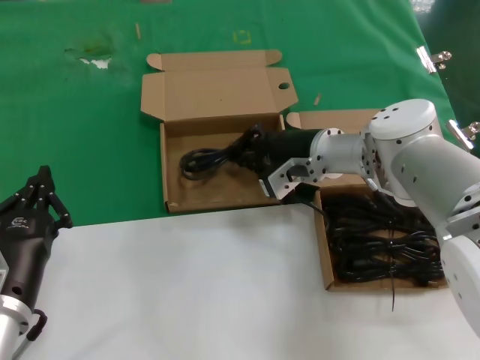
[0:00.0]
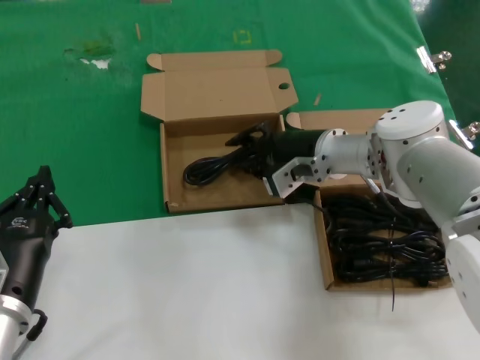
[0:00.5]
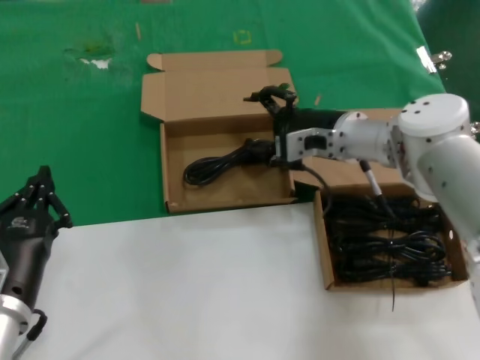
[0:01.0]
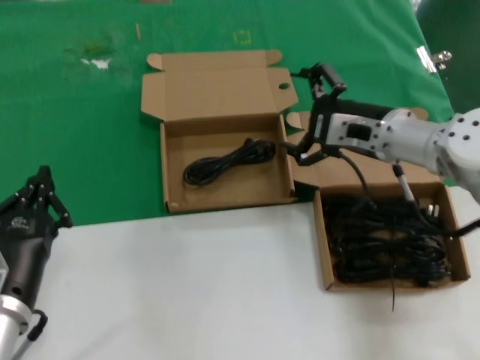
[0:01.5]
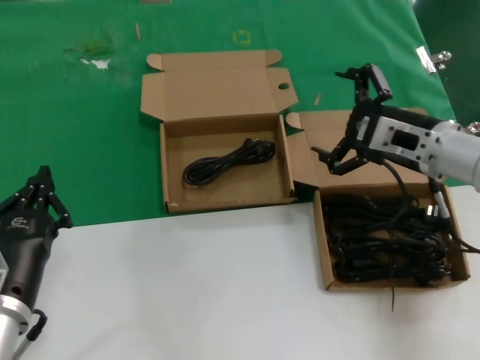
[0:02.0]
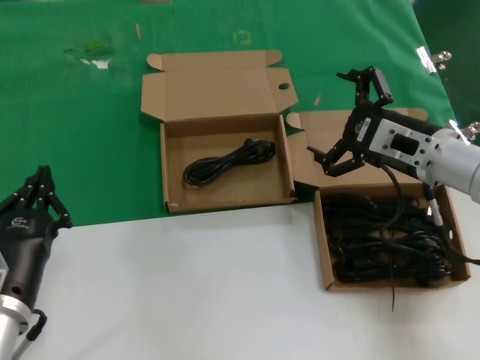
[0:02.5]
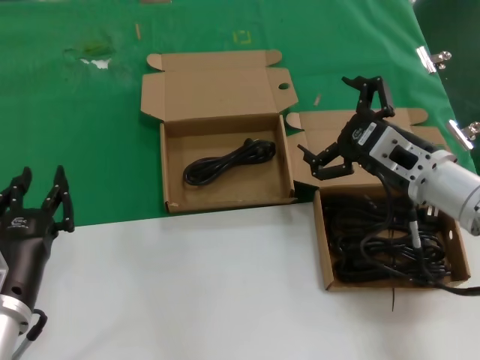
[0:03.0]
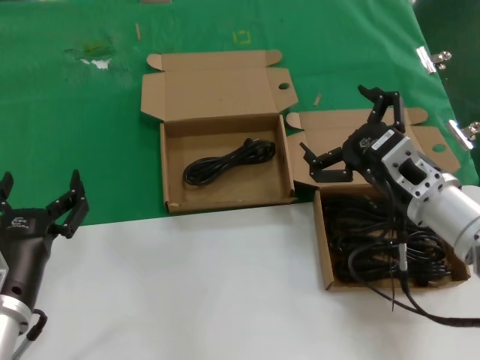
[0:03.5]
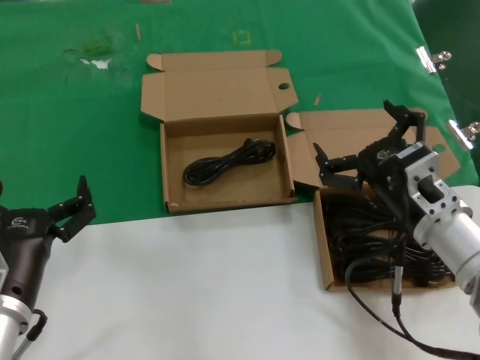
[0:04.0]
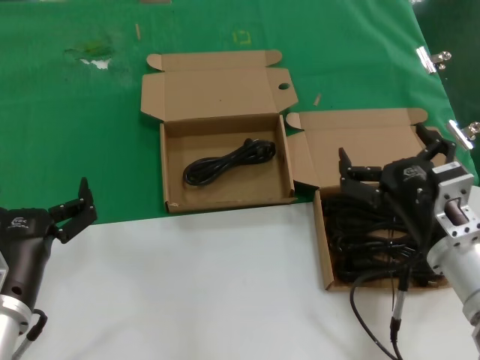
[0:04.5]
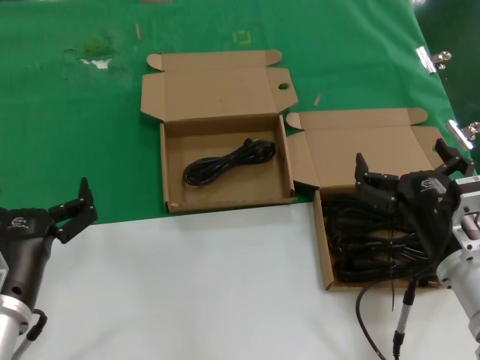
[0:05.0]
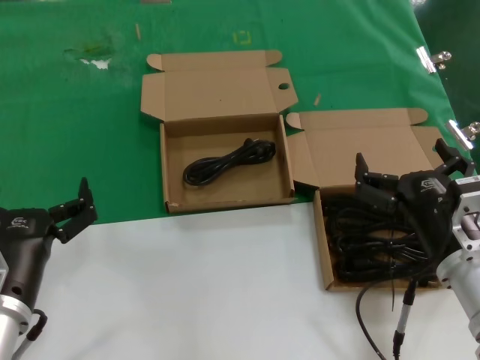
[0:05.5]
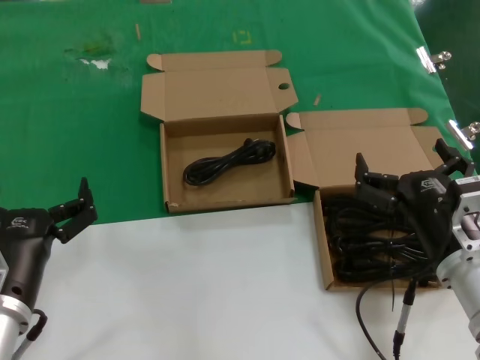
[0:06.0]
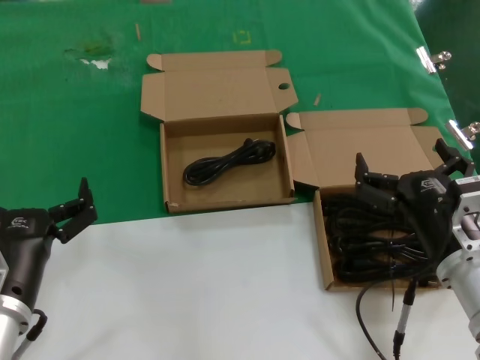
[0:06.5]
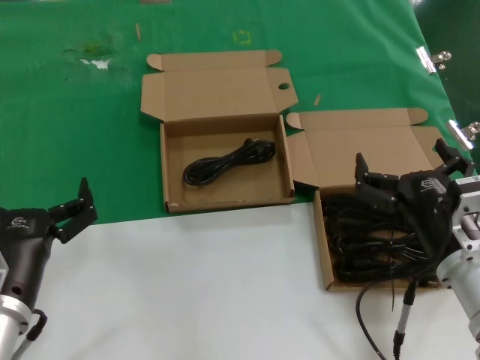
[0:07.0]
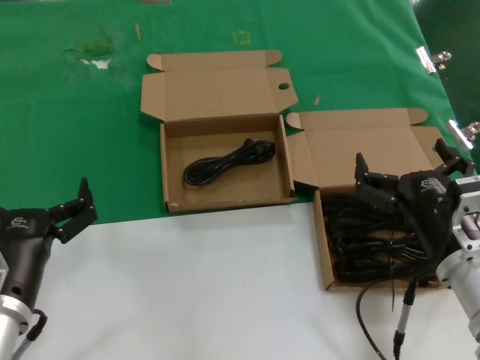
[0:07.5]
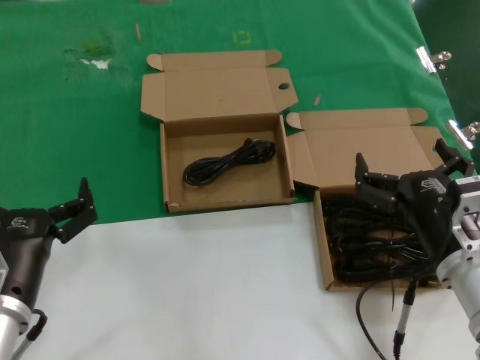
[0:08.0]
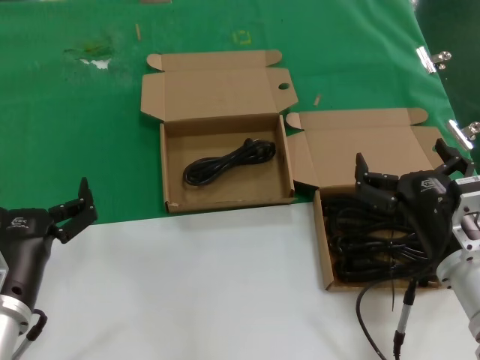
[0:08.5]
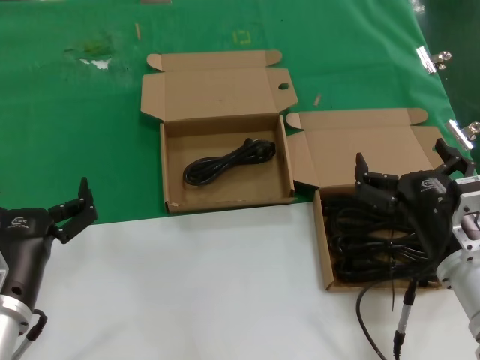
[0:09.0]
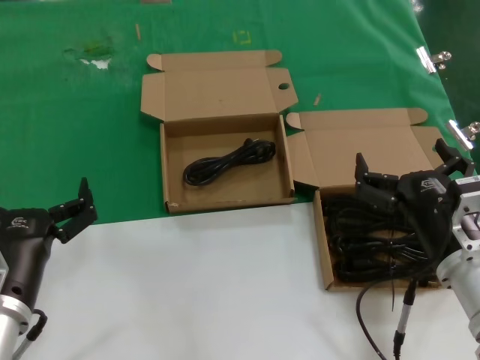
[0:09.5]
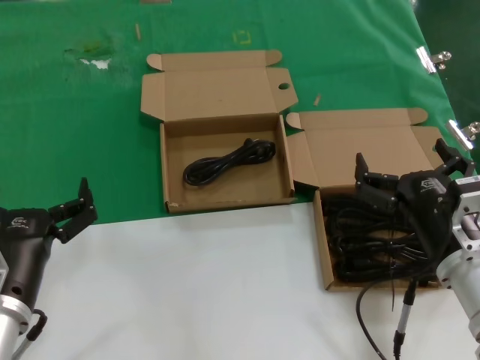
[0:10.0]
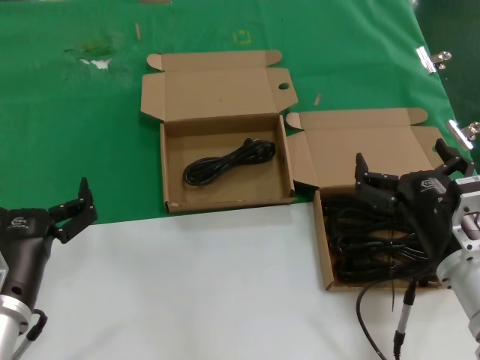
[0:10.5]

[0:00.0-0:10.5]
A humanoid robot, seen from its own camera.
Task of the whole recording: take the parts from the box containing them and put them into an empty box.
0:00.0 to 0:02.0: The right hand travels to the right and backward by roughly 15 cm.
0:02.0 to 0:04.0: The right hand is displaced backward and downward by about 10 cm.
0:04.0 to 0:06.5: The right hand moves backward, some 5 cm.
0:06.5 to 0:10.5: Neither hand changes place.
